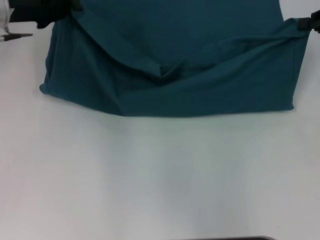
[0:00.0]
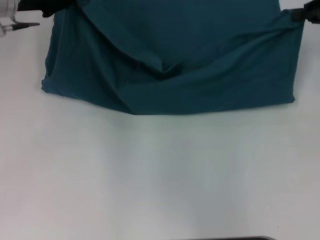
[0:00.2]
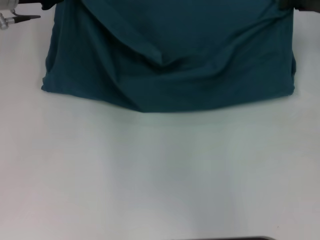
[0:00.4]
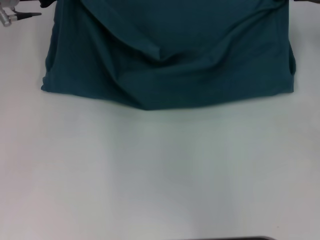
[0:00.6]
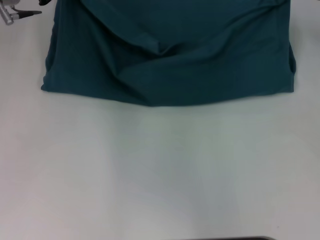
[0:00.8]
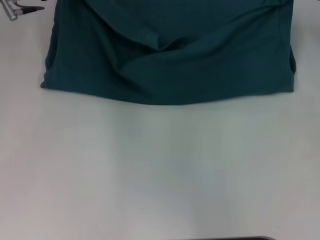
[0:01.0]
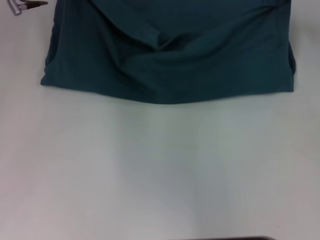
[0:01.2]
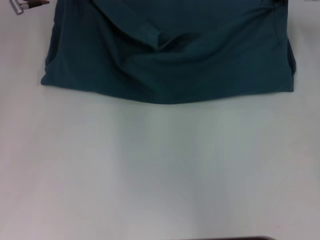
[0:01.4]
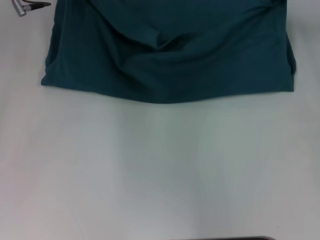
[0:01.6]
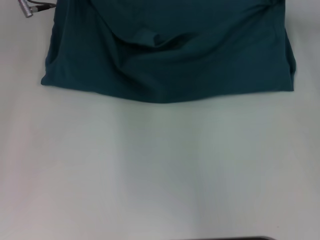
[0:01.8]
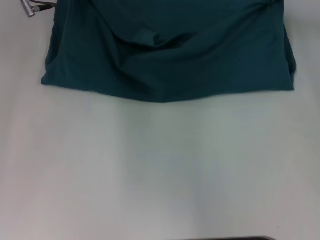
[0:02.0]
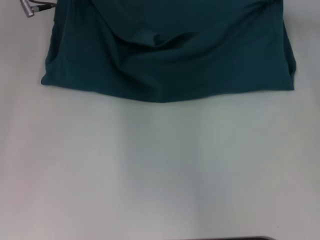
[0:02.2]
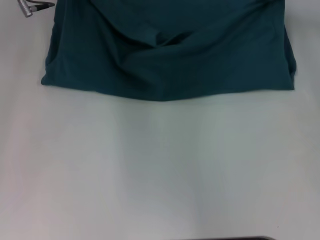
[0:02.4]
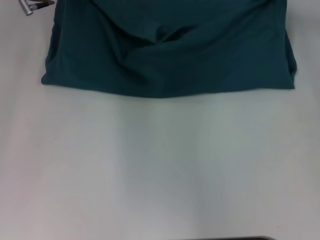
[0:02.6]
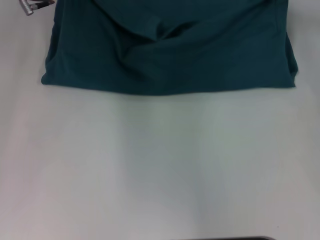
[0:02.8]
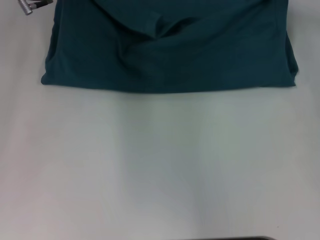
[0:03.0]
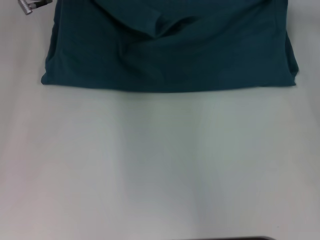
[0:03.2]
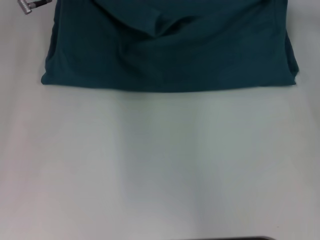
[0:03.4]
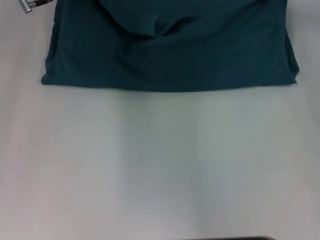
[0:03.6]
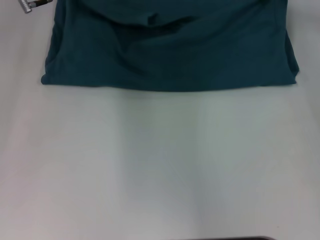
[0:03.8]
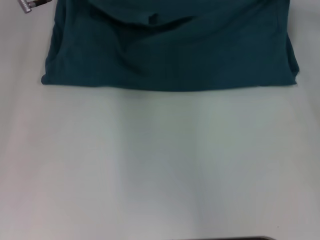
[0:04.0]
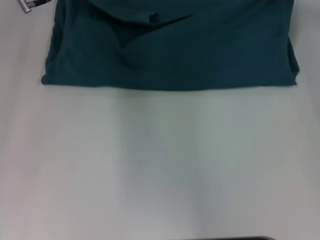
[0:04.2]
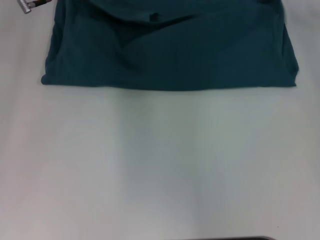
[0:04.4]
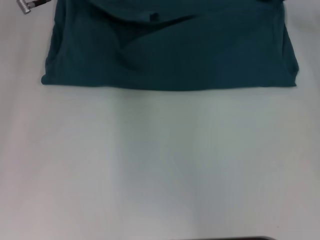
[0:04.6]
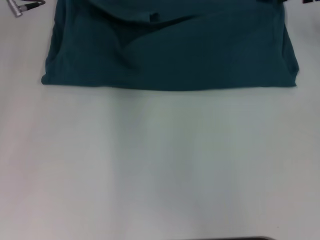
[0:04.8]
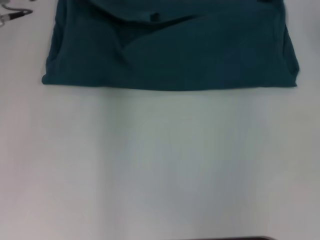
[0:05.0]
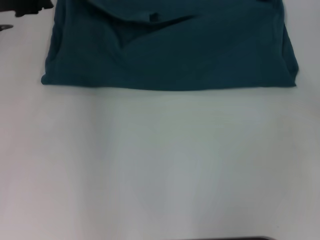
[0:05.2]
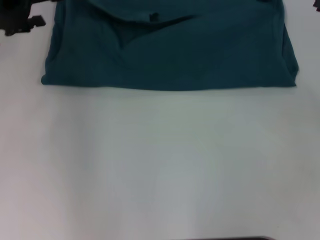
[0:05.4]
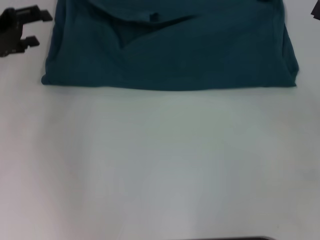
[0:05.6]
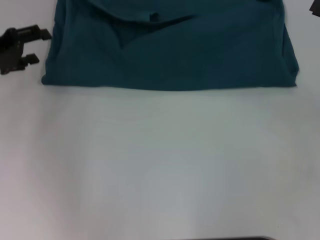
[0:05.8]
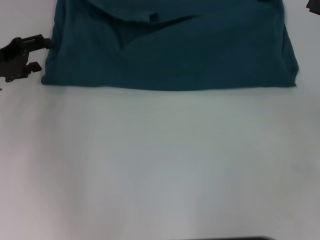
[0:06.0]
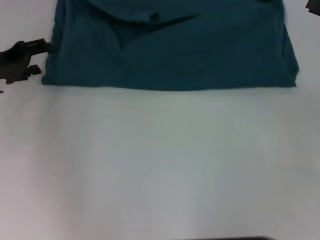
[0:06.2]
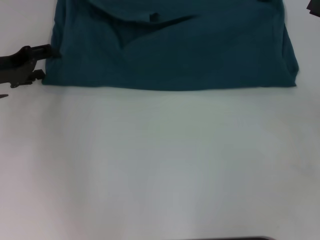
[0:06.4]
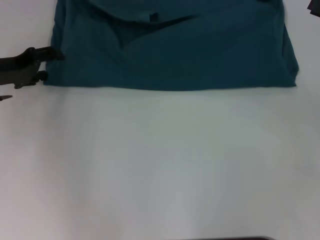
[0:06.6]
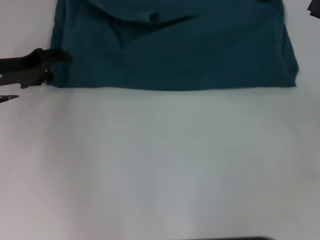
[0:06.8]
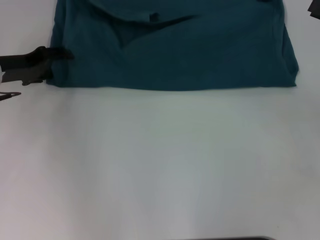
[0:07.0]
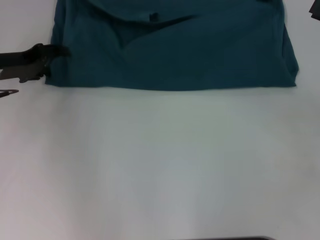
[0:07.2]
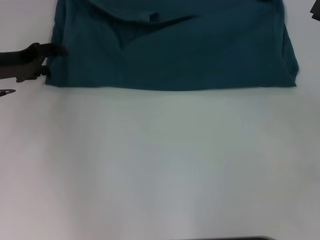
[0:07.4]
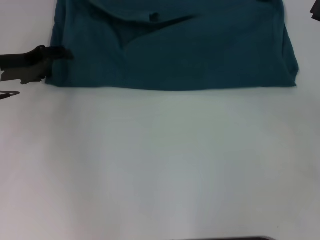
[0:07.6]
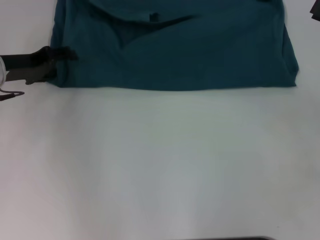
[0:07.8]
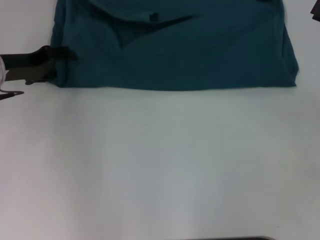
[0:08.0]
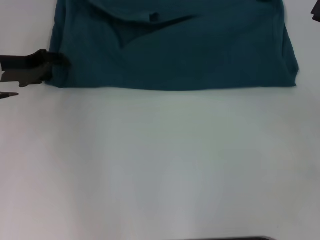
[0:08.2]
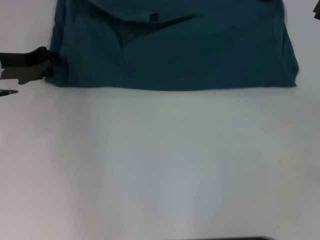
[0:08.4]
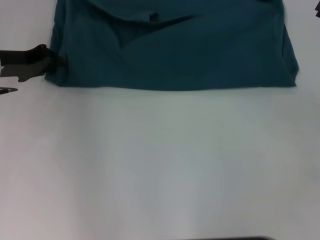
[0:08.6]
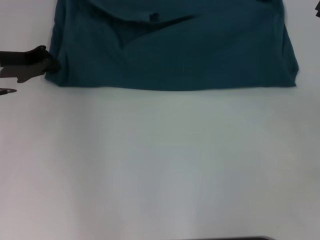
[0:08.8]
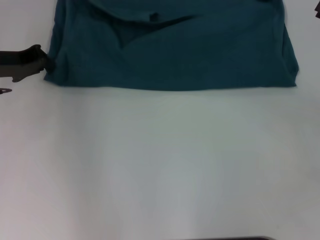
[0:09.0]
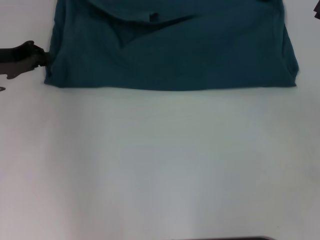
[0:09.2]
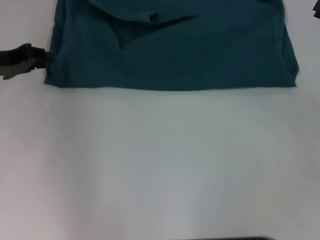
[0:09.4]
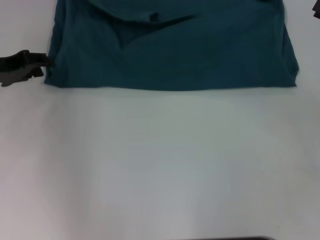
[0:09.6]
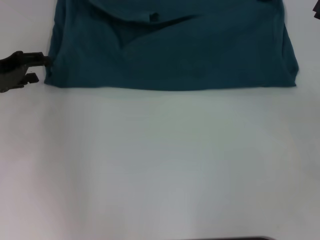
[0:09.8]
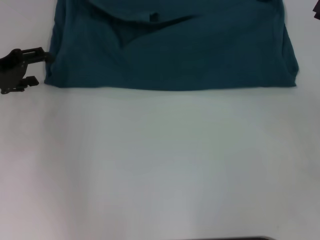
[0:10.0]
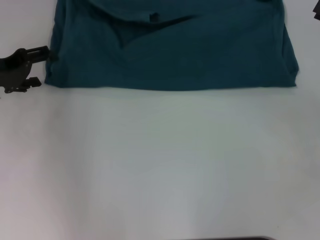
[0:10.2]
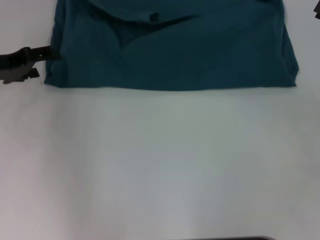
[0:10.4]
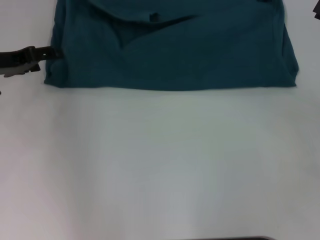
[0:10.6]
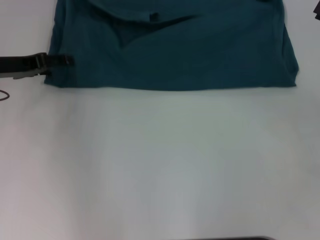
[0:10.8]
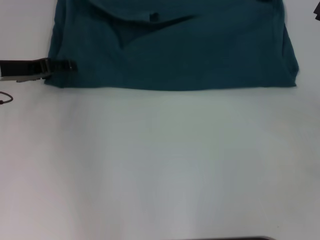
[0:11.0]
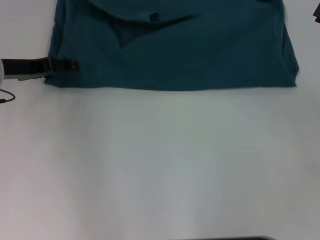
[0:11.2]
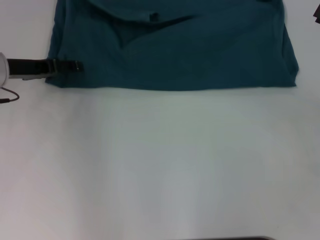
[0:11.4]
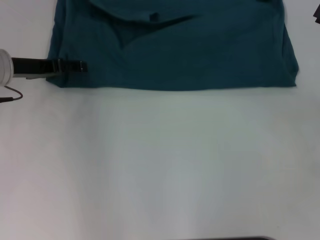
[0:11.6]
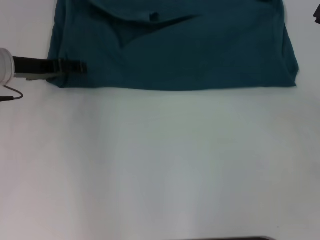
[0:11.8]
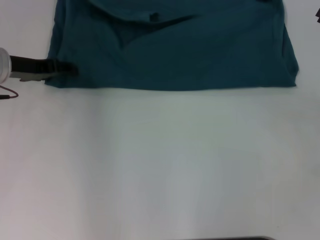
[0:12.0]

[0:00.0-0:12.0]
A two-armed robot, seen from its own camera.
Step, 0:00.0 to 0:04.6: Fold the clothes to the left.
Step, 0:00.0 to 0:04.6: Fold the clothes to the right.
0:00.0 to 0:01.6: The left gripper ends up roughly 5 cm from where it was. Meanwhile the right gripper shifts roughly 10 cm forward and to the left.
0:01.6 to 0:03.0: The grippers make only small movements.
0:03.0 to 0:04.4: The left gripper opens up. The right gripper opens.
0:04.4 to 0:06.0: The left gripper goes approximately 15 cm to the left, backward and downward. Meanwhile the right gripper goes some 15 cm backward.
0:06.0 to 0:07.6: The grippers move only a little.
0:07.6 to 0:09.0: The left gripper closes up.
0:09.0 to 0:10.4: The left gripper opens its fingers.
0:10.4 to 0:12.0: The grippers make only small movements.

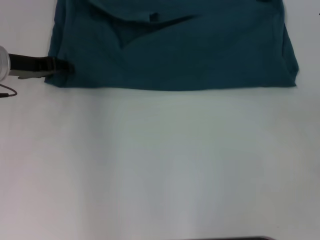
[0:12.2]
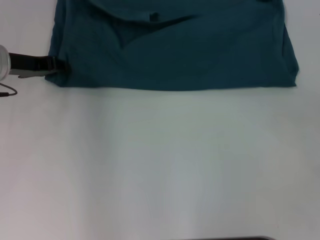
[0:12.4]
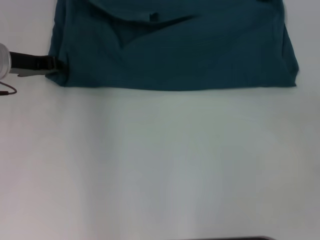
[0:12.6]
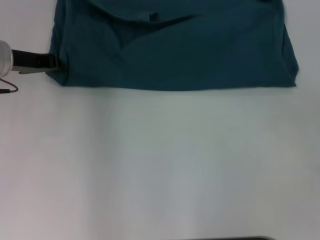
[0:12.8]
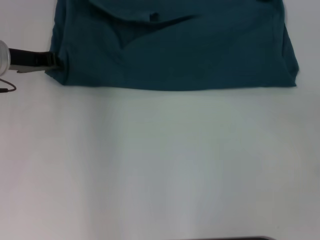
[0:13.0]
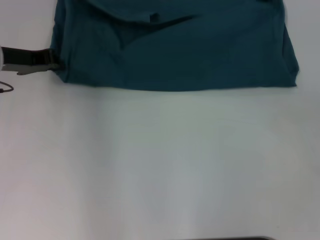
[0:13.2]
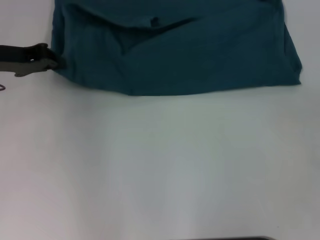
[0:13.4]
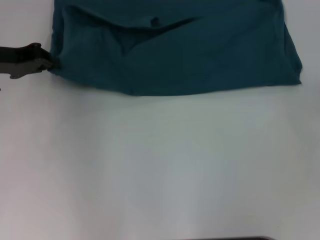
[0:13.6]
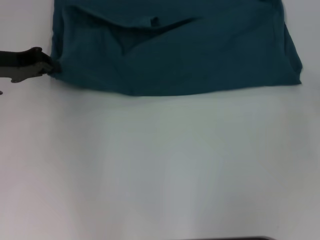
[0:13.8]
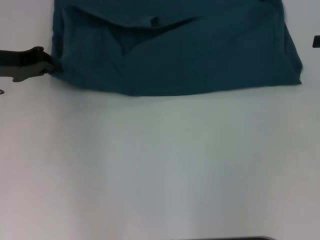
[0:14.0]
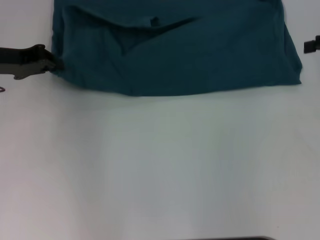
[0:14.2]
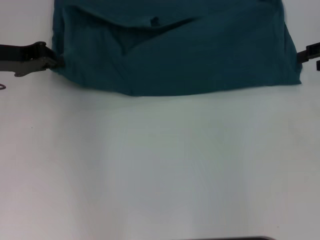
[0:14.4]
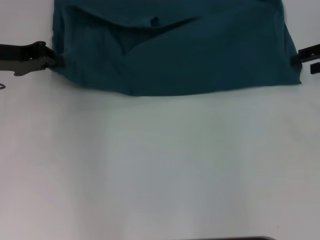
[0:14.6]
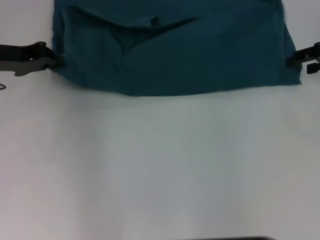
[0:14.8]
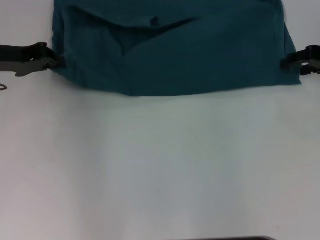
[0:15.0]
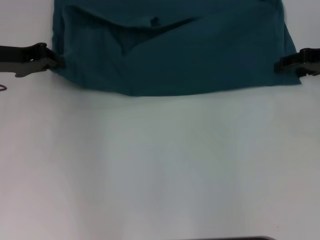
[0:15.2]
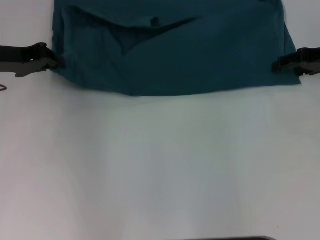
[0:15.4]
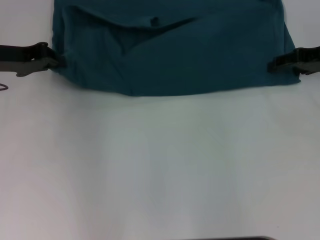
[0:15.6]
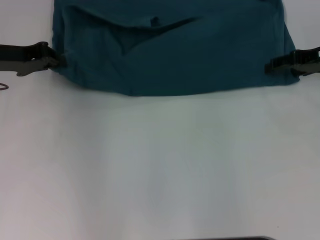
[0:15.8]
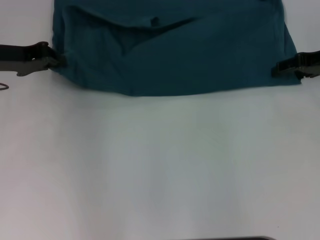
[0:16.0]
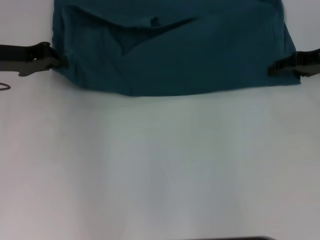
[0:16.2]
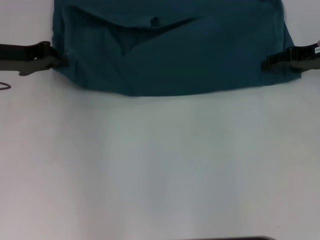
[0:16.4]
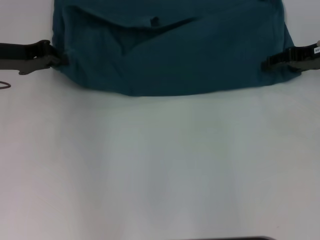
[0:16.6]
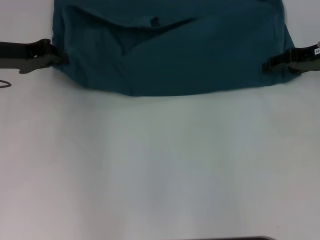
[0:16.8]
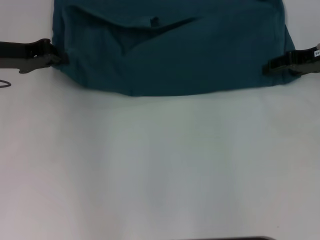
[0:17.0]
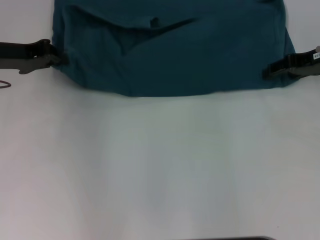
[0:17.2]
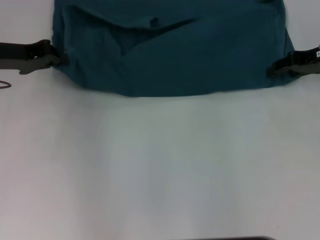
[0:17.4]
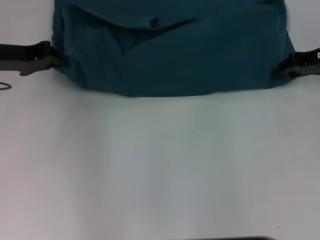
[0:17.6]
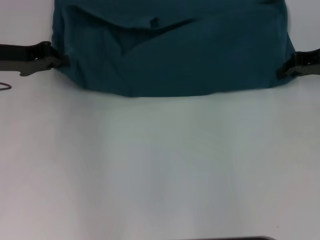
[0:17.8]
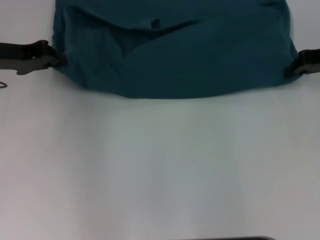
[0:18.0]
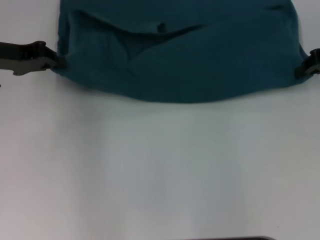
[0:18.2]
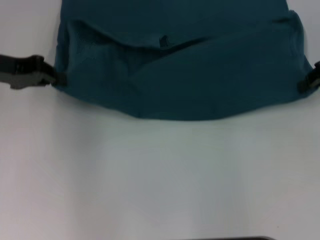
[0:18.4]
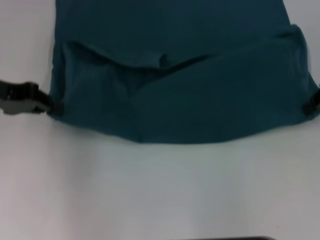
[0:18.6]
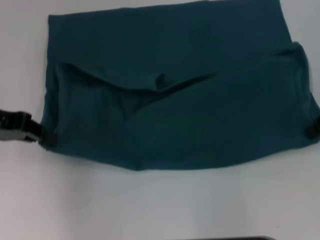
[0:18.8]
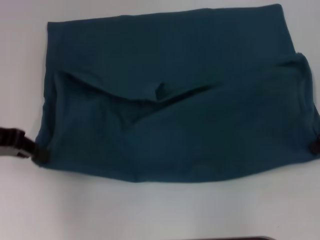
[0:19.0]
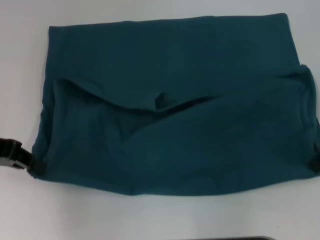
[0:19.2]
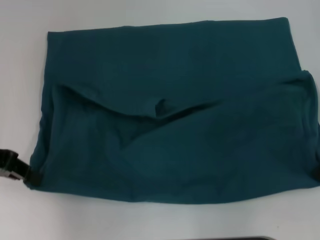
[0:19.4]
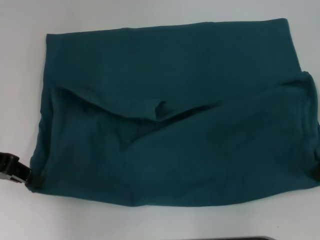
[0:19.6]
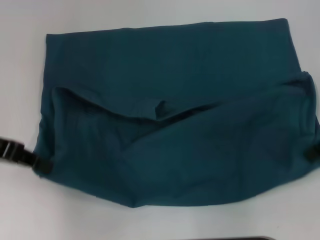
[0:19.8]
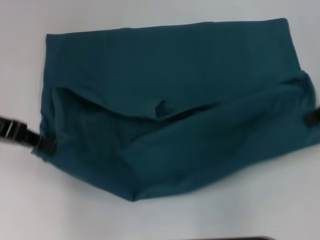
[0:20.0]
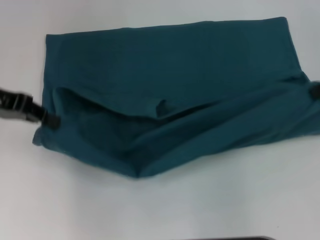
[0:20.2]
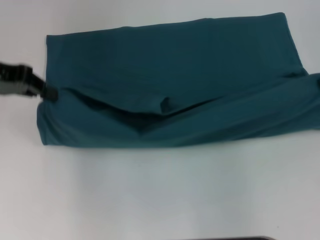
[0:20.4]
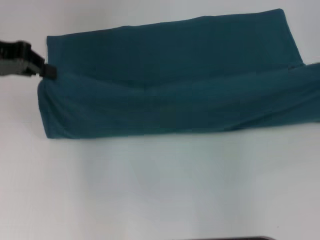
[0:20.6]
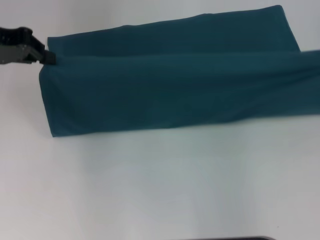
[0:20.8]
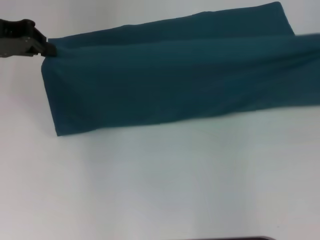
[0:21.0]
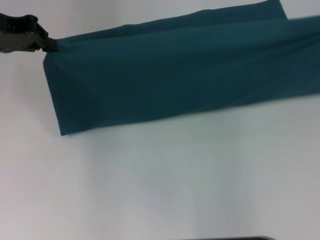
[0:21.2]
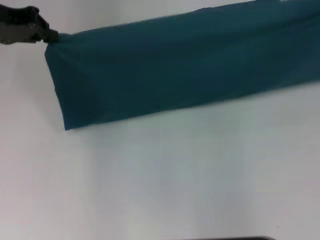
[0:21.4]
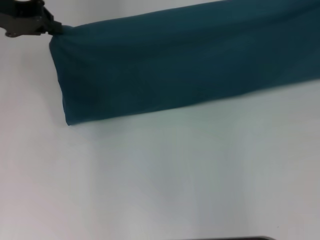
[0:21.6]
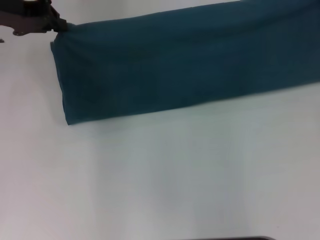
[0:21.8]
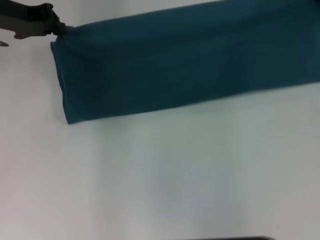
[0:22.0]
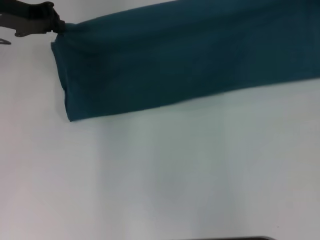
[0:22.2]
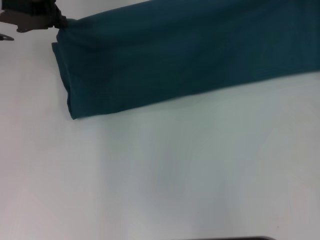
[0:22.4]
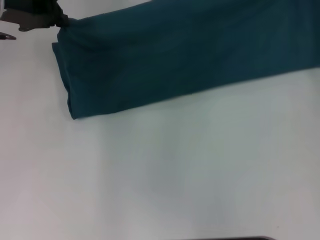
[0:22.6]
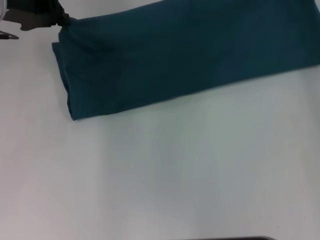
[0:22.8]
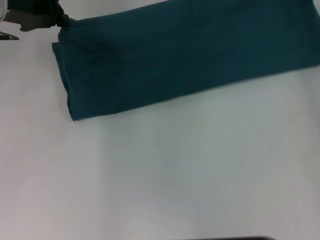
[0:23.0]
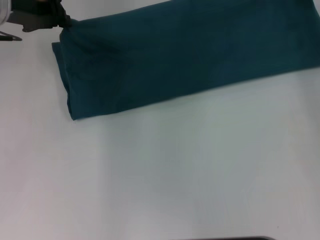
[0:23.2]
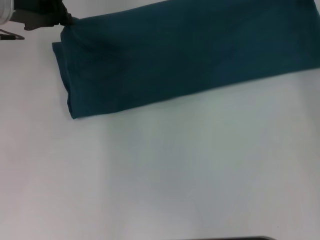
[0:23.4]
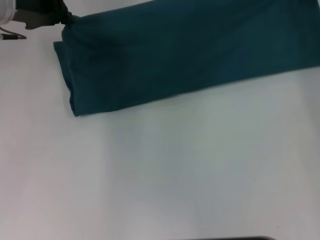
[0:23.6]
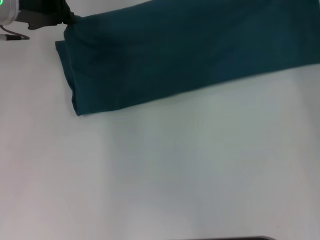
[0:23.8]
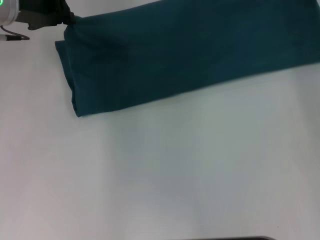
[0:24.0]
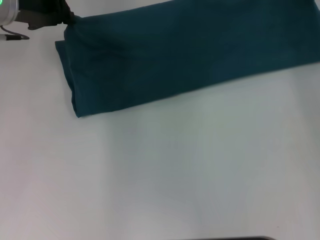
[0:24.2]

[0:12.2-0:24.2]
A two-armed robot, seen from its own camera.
Step, 0:12.2 to 0:19.4: Pull the clothes with your left hand.
Step, 0:12.2 to 0:19.4: Pull the clothes with your right hand.
0:12.2 to 0:13.8: The left gripper closes.
0:13.8 to 0:15.2: The right gripper travels forward and to the left by some 10 cm.
0:15.2 to 0:16.6: The grippers make only small movements.
0:16.6 to 0:18.2: The right gripper closes.
0:18.2 to 0:19.8: Both grippers travel together backward, some 10 cm.
0:19.8 to 0:21.2: The left gripper travels forward by some 10 cm. Meanwhile the right gripper is displaced to the right, forward and upward by about 10 cm.
0:21.2 to 0:22.6: The left gripper moves about 5 cm, while the right gripper shifts roughly 10 cm forward and to the left.
0:22.6 to 0:24.2: The grippers make only small movements.
